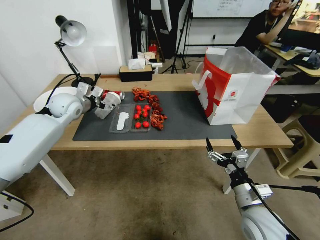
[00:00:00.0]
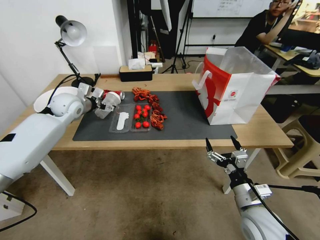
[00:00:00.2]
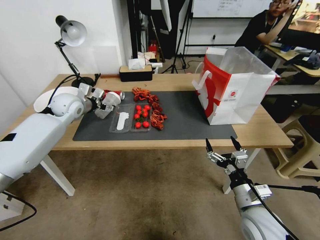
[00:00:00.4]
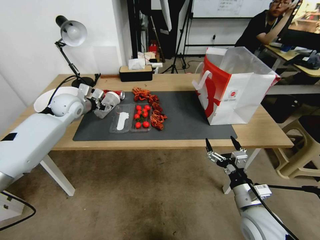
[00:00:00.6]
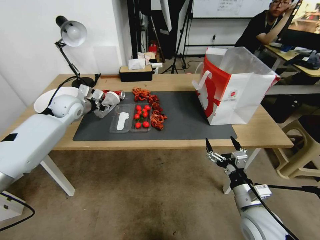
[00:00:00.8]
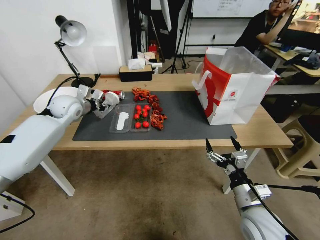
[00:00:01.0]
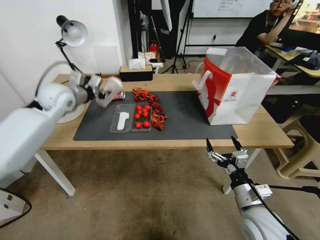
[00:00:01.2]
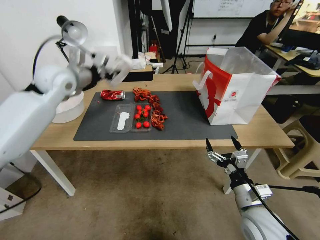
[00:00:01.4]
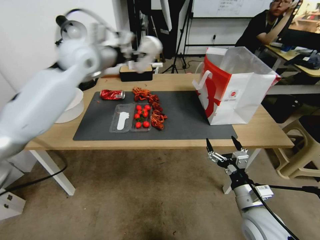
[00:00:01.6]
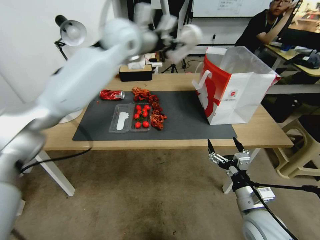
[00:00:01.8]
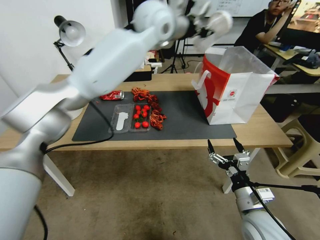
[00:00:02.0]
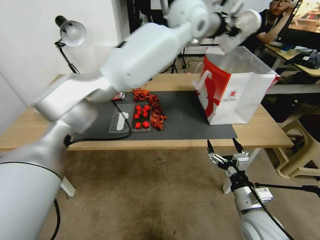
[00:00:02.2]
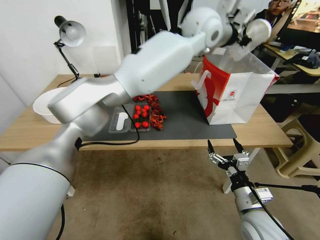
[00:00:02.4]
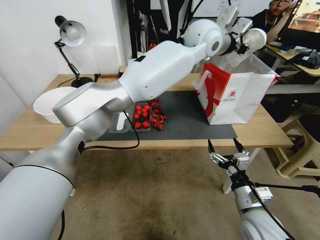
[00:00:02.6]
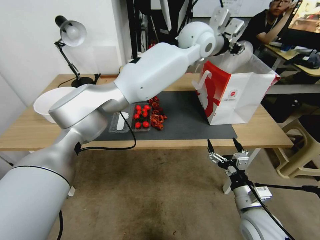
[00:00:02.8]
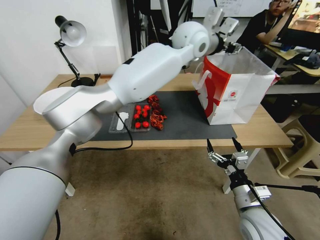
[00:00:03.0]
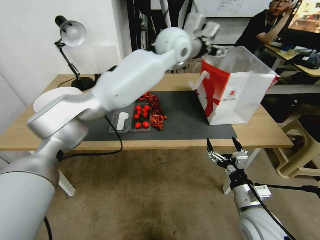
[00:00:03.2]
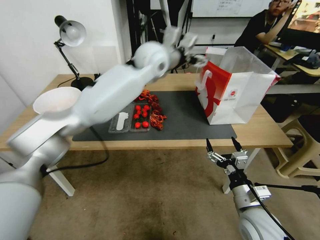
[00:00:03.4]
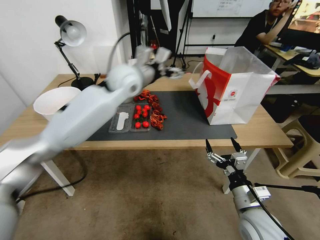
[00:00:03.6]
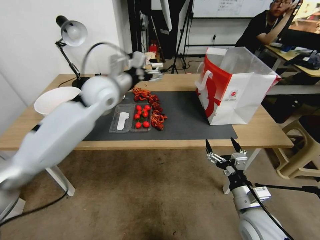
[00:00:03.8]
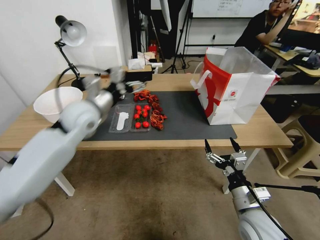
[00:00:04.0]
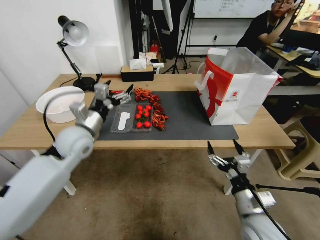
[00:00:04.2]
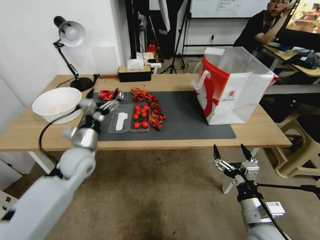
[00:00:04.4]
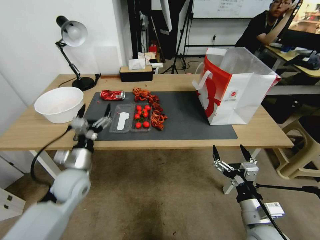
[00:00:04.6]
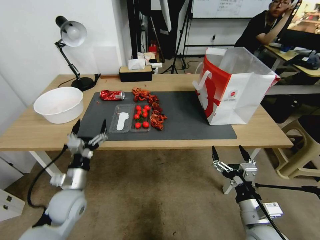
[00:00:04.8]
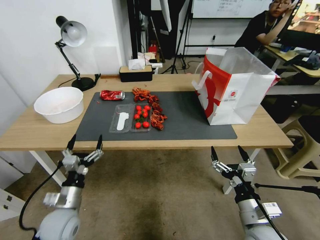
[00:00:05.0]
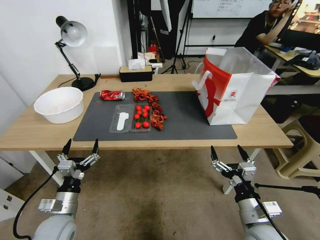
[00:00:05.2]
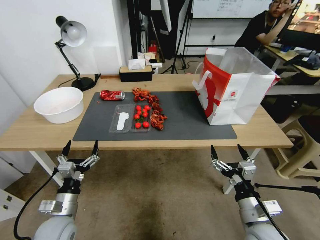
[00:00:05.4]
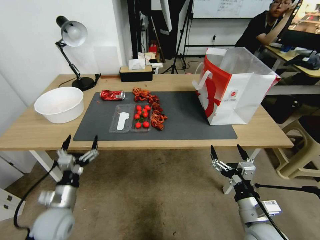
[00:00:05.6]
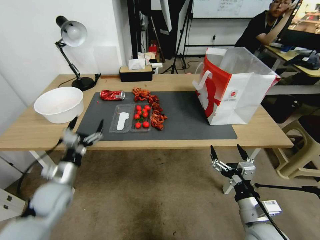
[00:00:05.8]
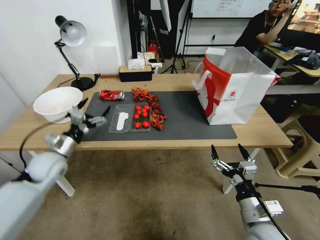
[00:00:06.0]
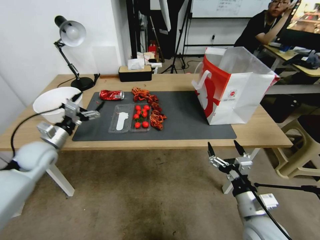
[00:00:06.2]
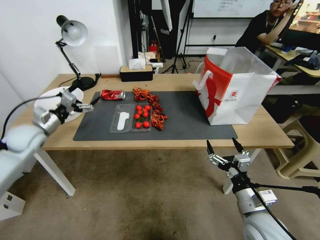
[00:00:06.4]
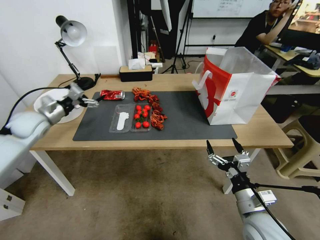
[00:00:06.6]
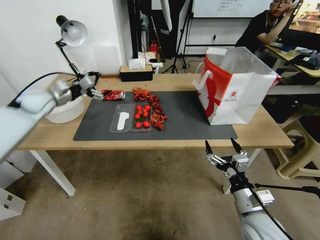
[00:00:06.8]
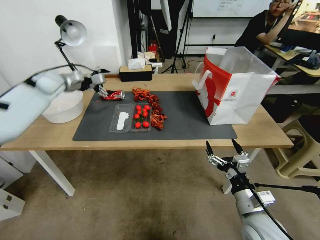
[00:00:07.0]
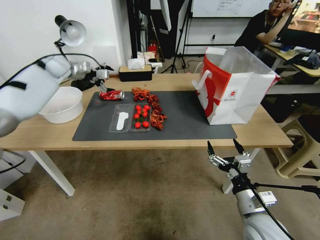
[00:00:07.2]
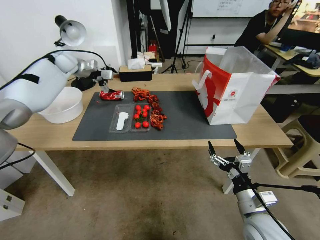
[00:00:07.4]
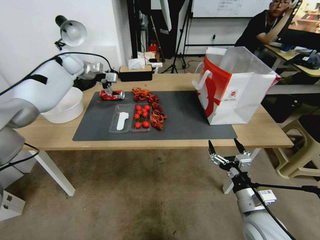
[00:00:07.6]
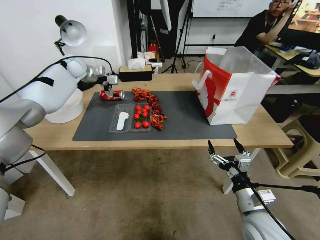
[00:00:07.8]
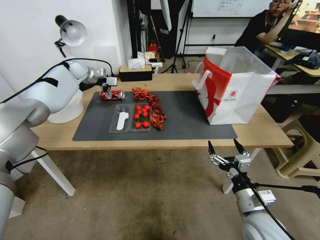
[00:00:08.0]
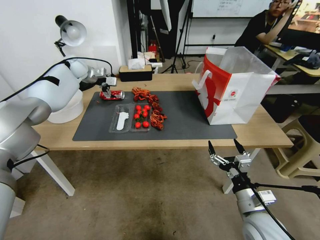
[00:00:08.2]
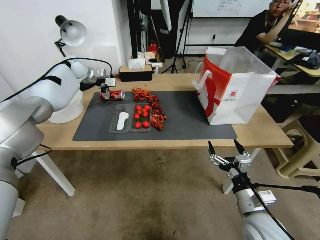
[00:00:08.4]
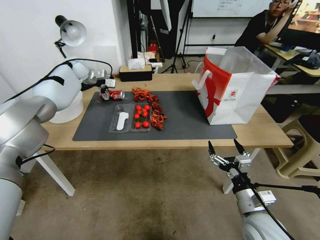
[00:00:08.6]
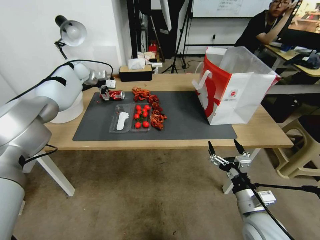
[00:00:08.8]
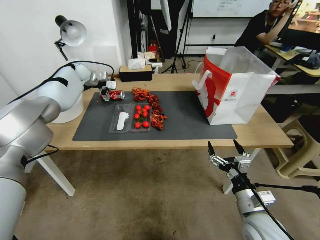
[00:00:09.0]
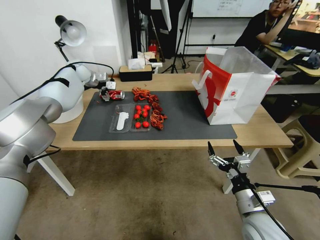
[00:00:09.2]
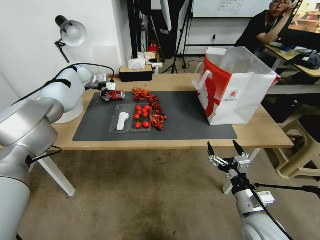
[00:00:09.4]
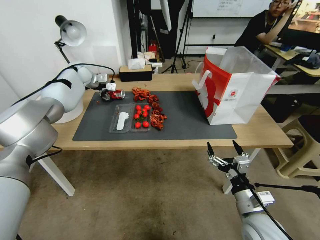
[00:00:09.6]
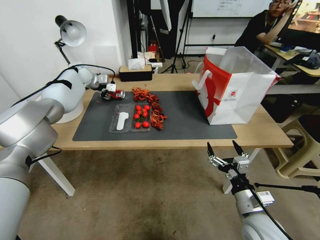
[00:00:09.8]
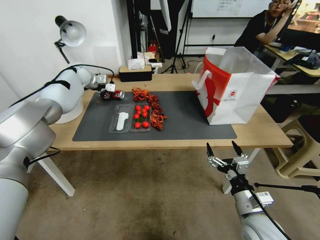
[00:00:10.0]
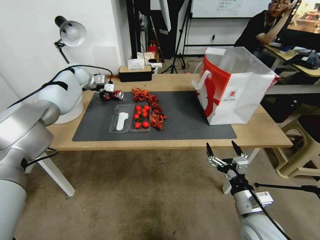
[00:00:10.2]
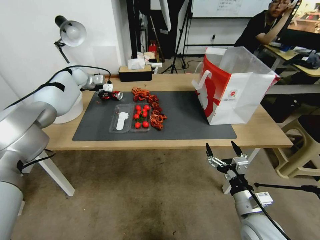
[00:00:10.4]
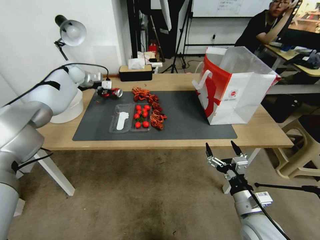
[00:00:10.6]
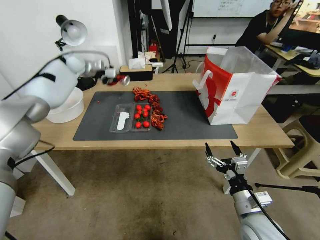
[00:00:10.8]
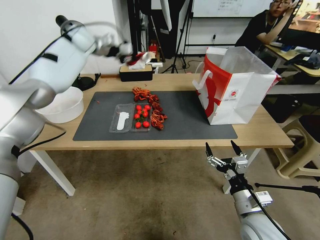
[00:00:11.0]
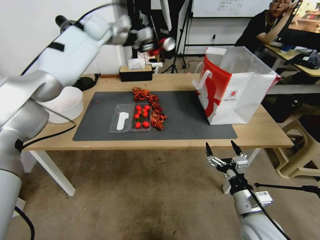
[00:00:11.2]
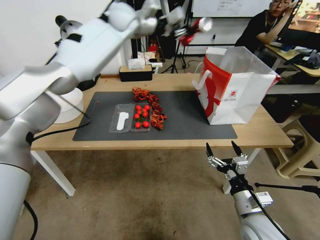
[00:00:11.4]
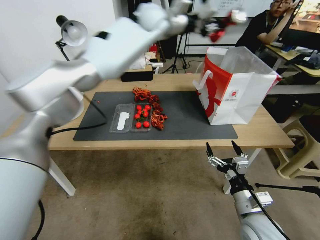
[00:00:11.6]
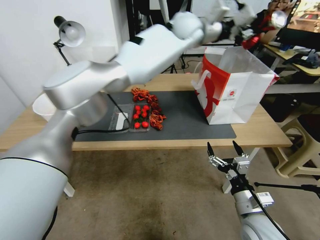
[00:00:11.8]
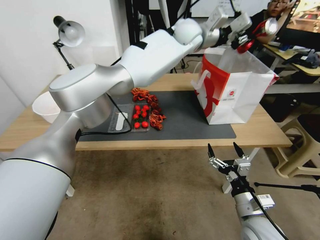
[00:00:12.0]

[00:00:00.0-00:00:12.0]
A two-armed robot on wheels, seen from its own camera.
00:00:00.0 to 00:00:01.6: The left gripper shifts some 15 cm upward, and closes.
00:00:01.6 to 00:00:03.0: The left gripper is displaced to the right by approximately 35 cm, and opens up.
00:00:03.0 to 00:00:04.4: The left gripper moves to the left, downward and backward, some 50 cm, and opens its fingers.
00:00:04.4 to 00:00:06.0: The left gripper moves to the left, roughly 10 cm, and travels backward and back again, about 15 cm each way.
00:00:06.0 to 00:00:07.6: The left gripper goes approximately 40 cm forward and upward.
00:00:07.6 to 00:00:09.0: The grippers move only a little.
00:00:09.0 to 00:00:10.4: The left gripper closes.
00:00:10.4 to 00:00:12.0: The left gripper is displaced to the right by some 40 cm.

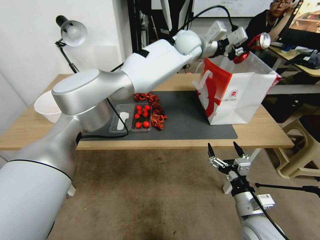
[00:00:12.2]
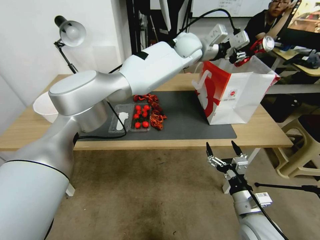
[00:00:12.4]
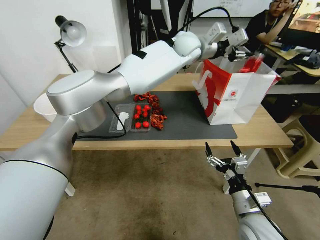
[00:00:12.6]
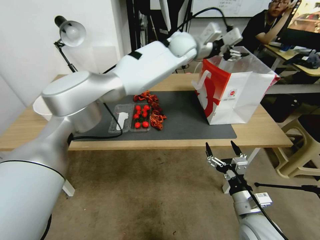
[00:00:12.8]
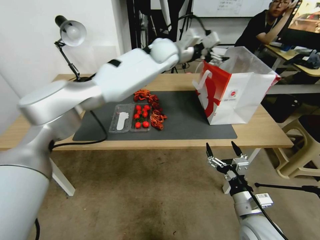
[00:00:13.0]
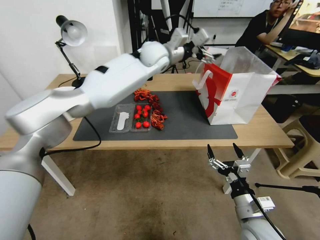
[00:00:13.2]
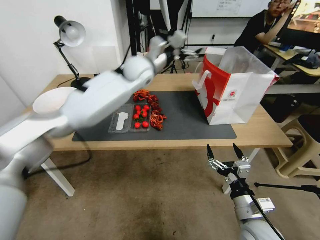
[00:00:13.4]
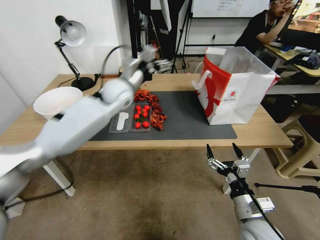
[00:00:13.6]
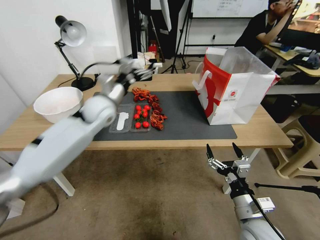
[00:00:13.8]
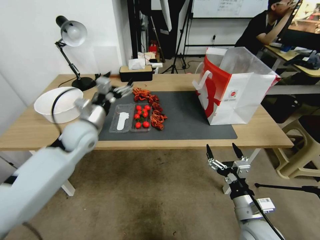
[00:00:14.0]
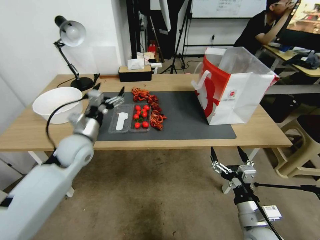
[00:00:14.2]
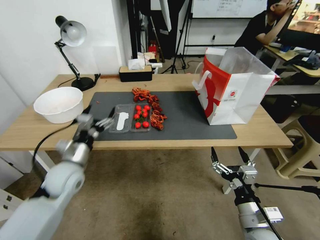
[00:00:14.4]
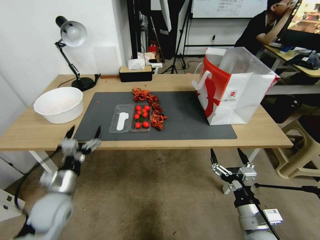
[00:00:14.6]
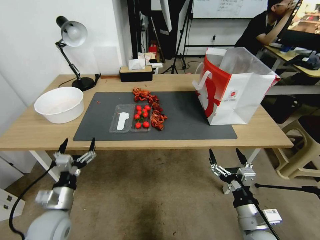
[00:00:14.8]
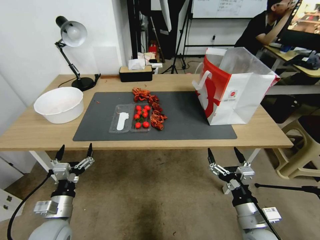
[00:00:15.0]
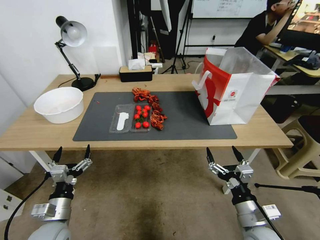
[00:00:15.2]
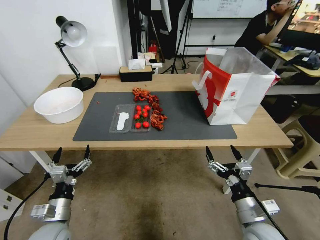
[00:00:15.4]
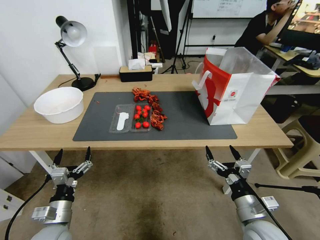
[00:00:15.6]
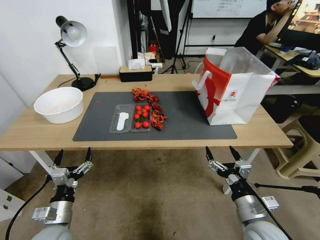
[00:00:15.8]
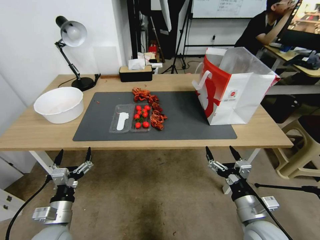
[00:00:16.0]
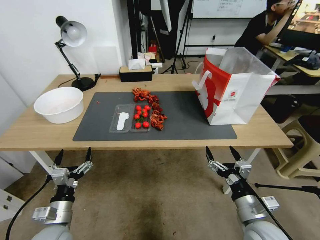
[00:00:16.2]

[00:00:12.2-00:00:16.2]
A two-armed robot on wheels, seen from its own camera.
00:00:12.2 to 00:00:13.6: The left gripper shifts about 30 cm to the left, downward and backward, and opens up.
00:00:13.6 to 00:00:14.8: The left gripper goes about 40 cm backward, downward and to the left.
00:00:14.8 to 00:00:16.2: The grippers stay close to where they were, moving slightly.
